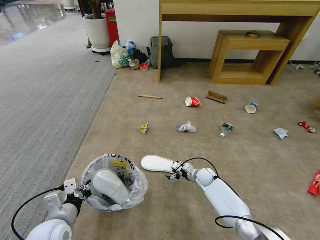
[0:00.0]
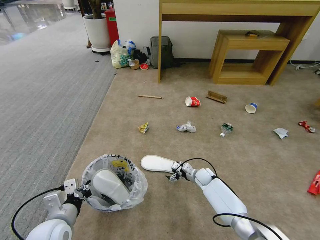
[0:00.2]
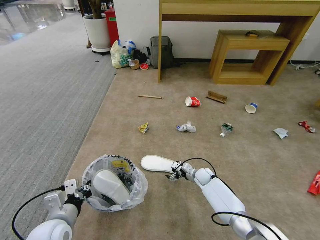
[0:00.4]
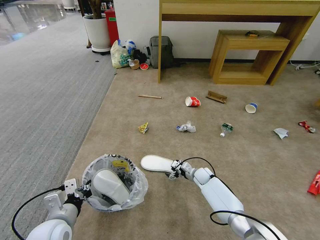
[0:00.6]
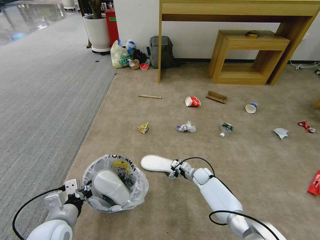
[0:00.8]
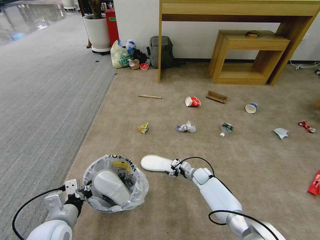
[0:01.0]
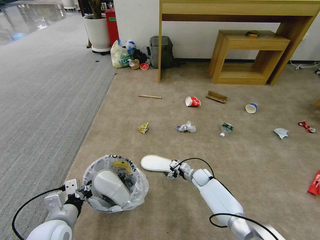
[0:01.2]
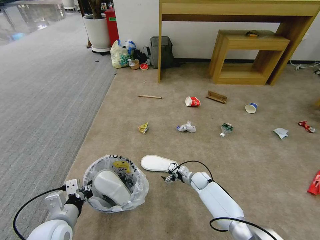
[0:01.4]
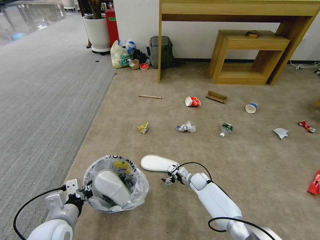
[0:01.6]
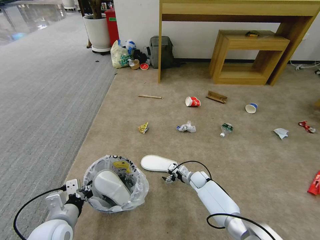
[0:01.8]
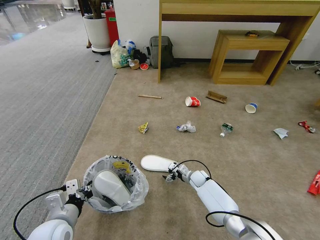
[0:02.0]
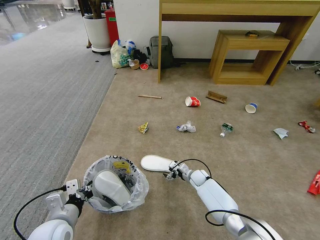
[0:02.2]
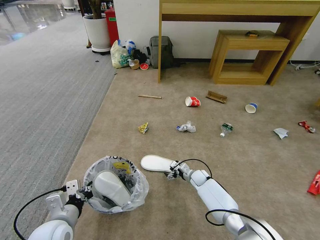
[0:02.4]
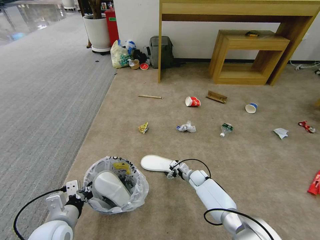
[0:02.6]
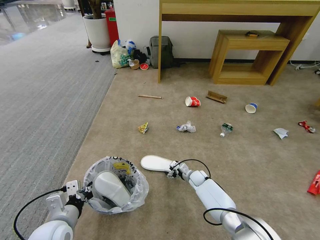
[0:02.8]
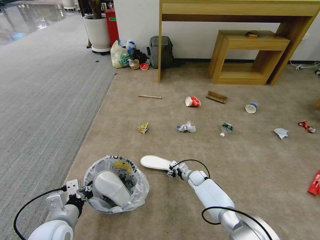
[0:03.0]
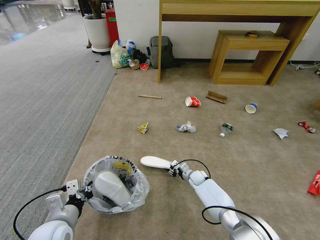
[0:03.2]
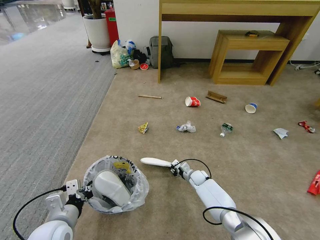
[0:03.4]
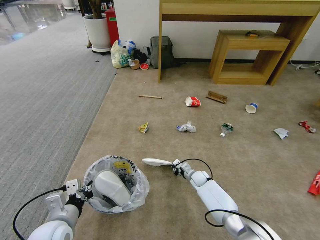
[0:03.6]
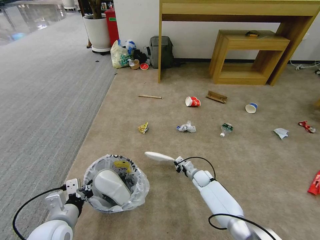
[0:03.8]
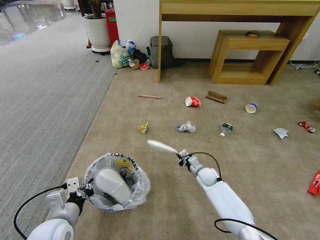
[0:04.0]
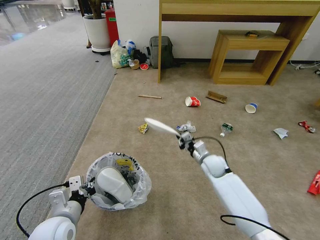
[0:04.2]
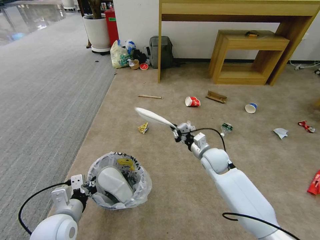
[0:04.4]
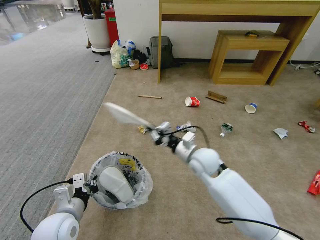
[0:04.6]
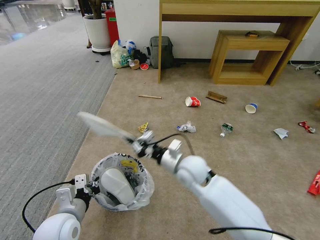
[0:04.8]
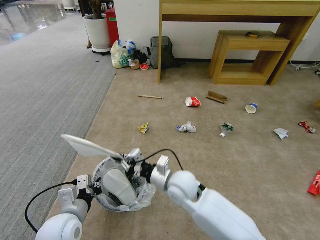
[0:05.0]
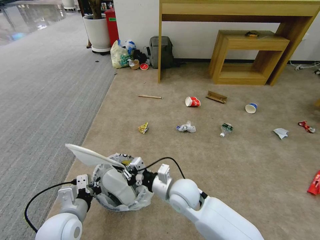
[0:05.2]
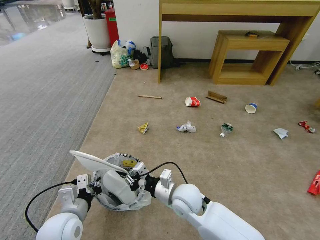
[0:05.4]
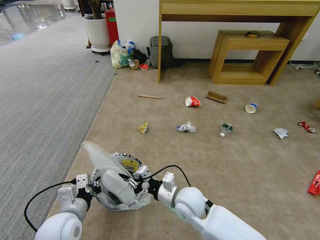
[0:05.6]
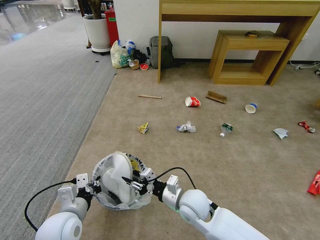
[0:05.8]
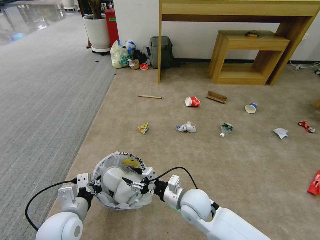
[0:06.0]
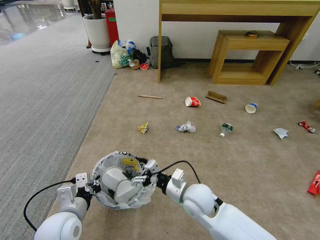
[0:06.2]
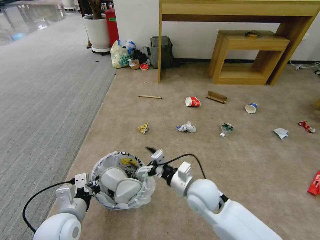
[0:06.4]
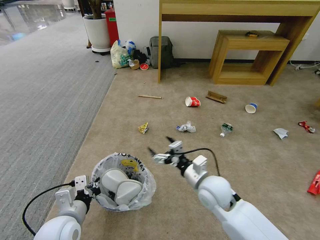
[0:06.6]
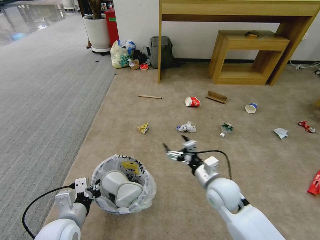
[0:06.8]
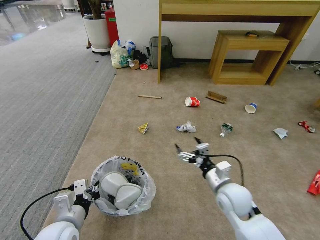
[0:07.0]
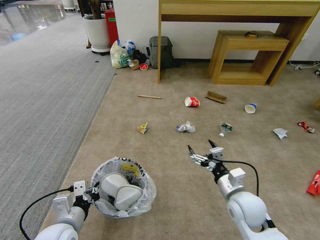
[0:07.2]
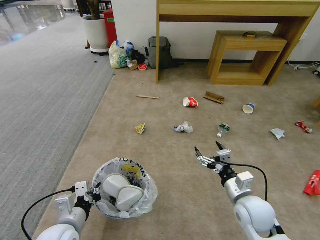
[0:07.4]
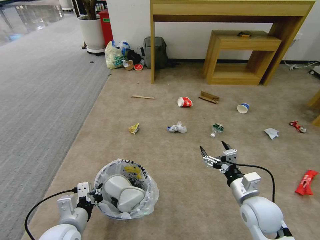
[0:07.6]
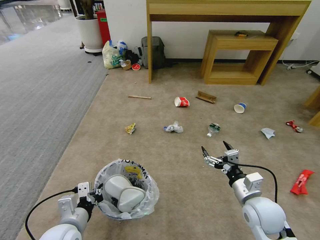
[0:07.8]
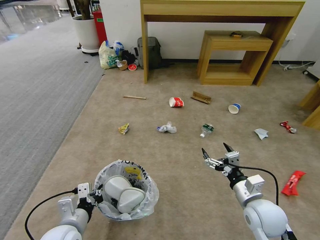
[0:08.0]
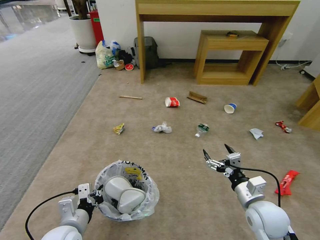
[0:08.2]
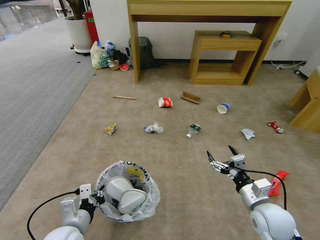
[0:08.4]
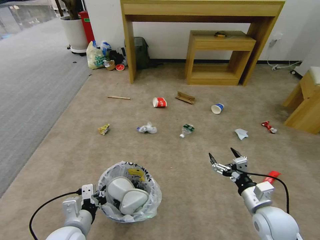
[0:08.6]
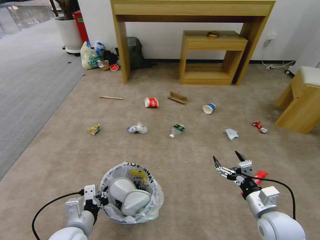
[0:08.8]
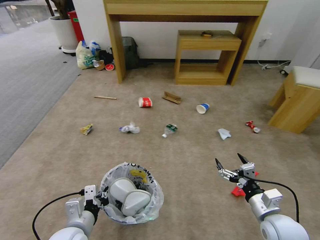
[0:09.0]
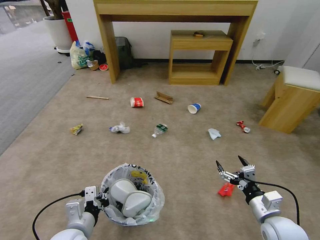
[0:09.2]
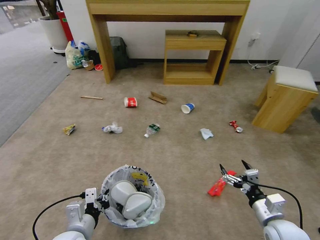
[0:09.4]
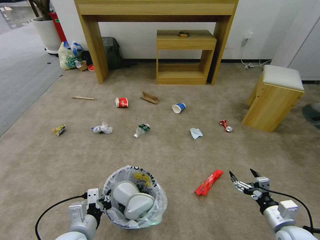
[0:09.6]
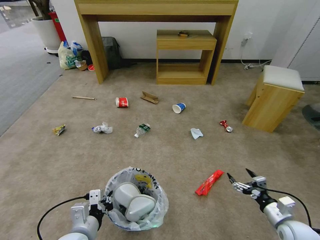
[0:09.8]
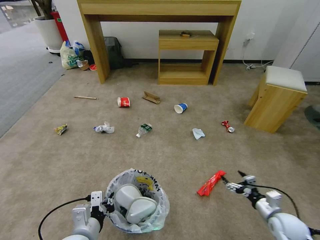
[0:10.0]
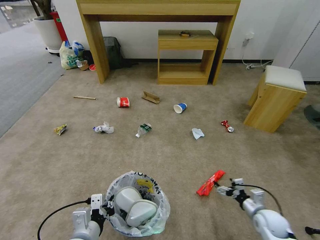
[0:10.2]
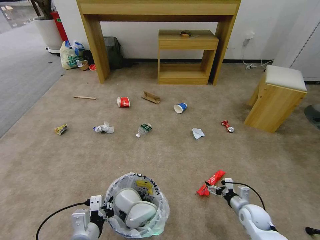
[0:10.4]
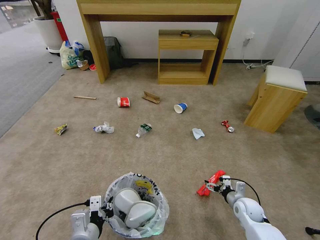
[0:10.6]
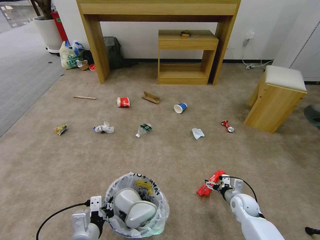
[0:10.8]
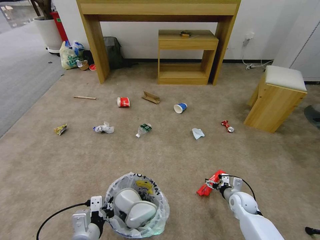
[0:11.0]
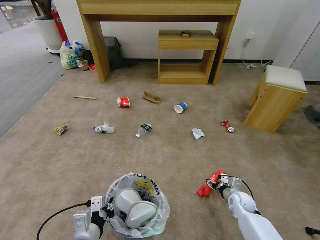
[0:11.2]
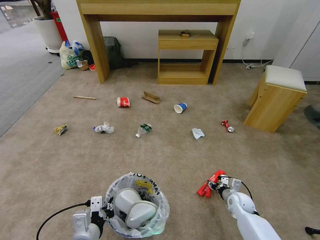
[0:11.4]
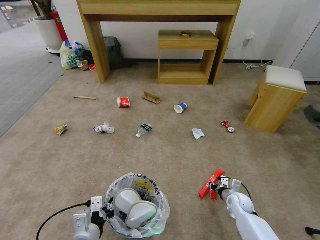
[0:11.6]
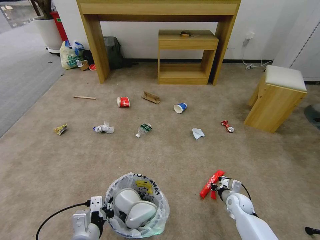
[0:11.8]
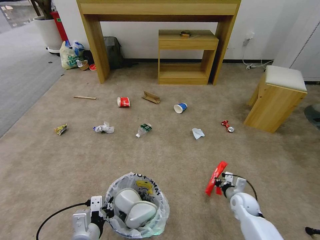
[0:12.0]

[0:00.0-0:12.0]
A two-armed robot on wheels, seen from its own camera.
Task of the whole recording: Pick up the trash bin and place the garbage on the floor into it.
0:00.0 to 0:01.6: The grippers stay close to where they were, moving slightly.
0:01.6 to 0:03.0: The right gripper closes.
0:03.0 to 0:04.4: The right gripper travels upward by about 25 cm, and closes.
0:04.4 to 0:06.0: The right gripper travels backward and to the left by approximately 20 cm, and opens.
0:06.0 to 0:07.6: The right gripper travels to the right by roughly 15 cm, and opens up.
0:07.6 to 0:09.0: The right gripper heads to the right, covering some 5 cm.
0:09.0 to 0:10.4: The right gripper heads downward and forward, covering about 15 cm.
0:10.4 to 0:12.0: The right gripper closes its fingers.

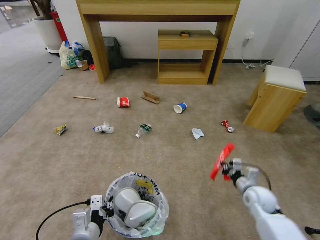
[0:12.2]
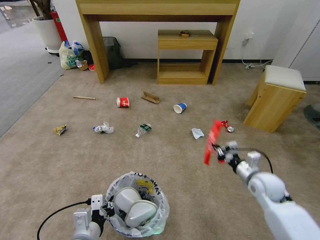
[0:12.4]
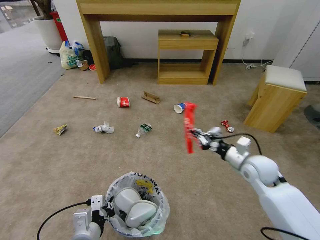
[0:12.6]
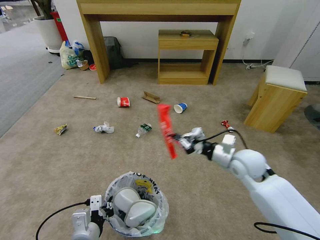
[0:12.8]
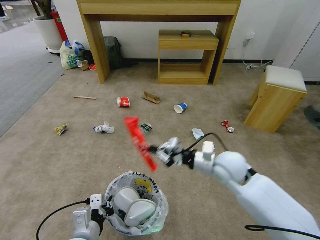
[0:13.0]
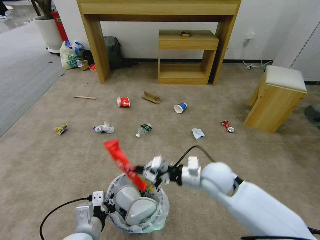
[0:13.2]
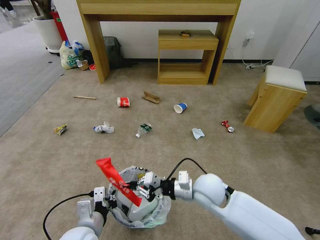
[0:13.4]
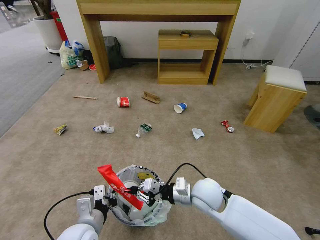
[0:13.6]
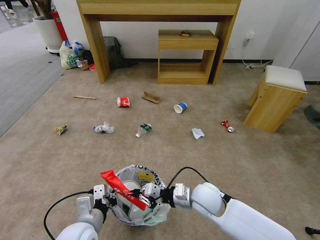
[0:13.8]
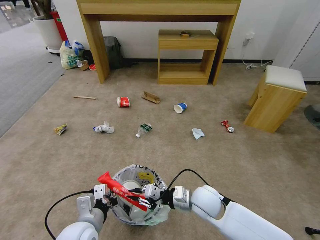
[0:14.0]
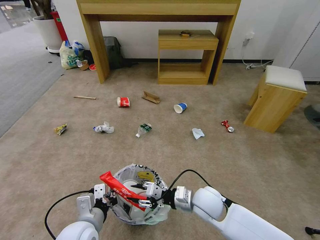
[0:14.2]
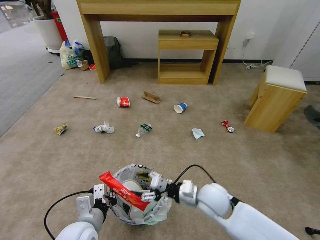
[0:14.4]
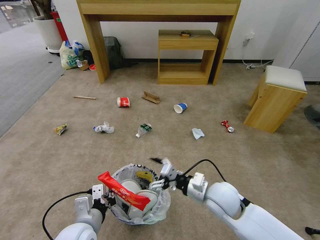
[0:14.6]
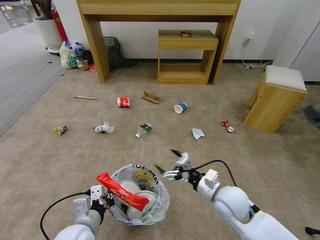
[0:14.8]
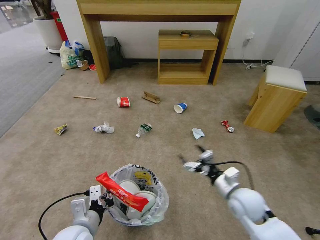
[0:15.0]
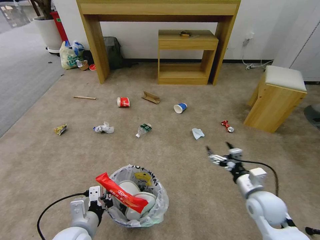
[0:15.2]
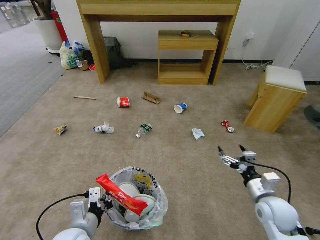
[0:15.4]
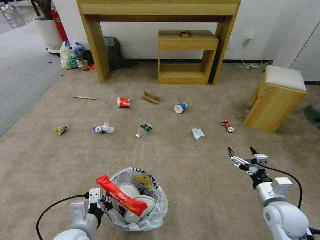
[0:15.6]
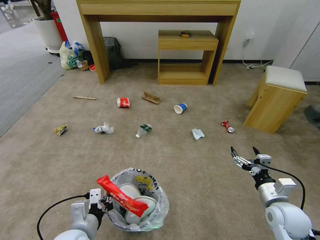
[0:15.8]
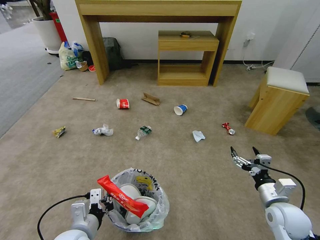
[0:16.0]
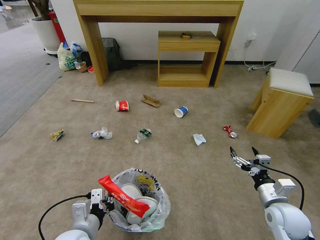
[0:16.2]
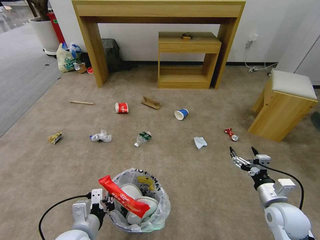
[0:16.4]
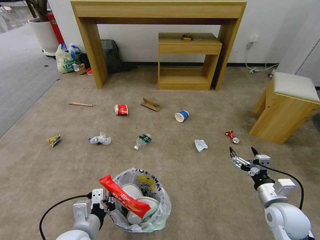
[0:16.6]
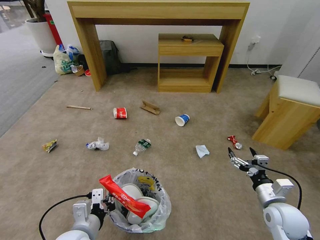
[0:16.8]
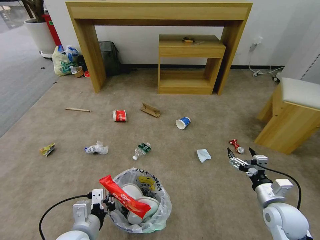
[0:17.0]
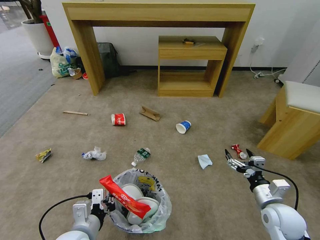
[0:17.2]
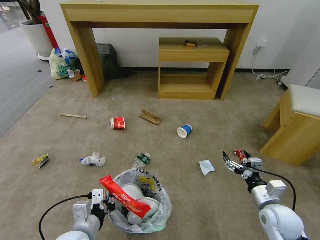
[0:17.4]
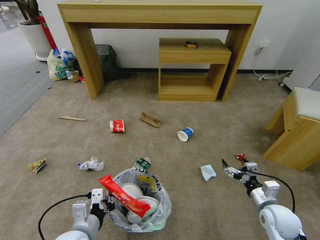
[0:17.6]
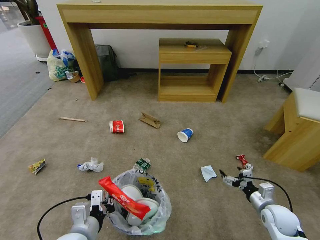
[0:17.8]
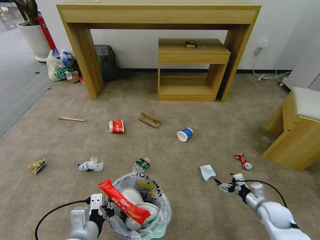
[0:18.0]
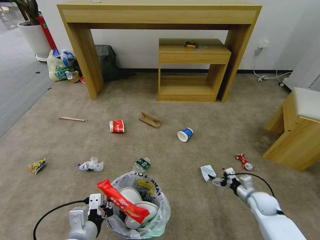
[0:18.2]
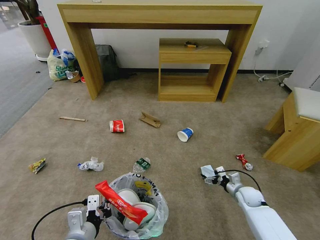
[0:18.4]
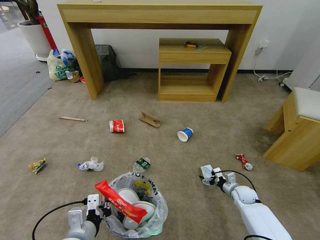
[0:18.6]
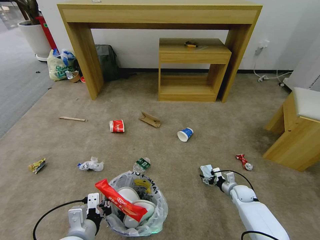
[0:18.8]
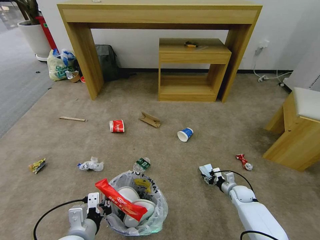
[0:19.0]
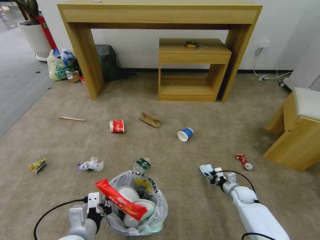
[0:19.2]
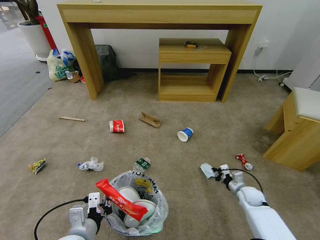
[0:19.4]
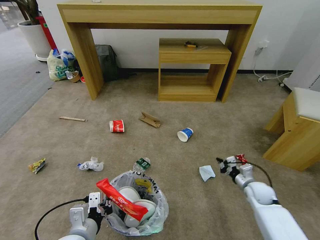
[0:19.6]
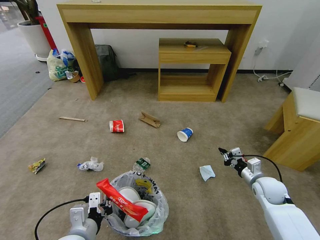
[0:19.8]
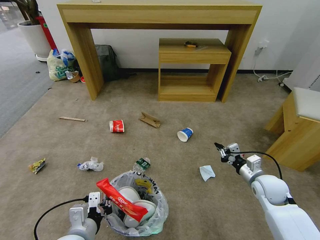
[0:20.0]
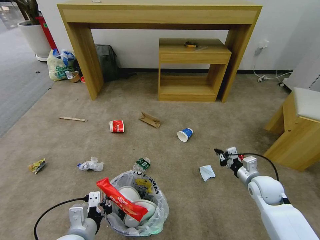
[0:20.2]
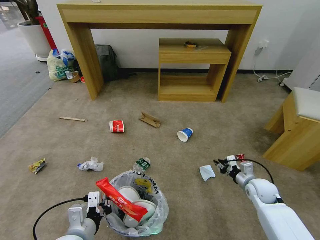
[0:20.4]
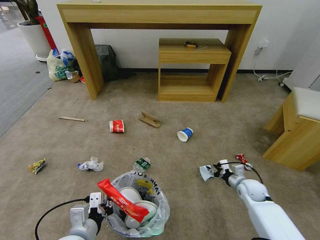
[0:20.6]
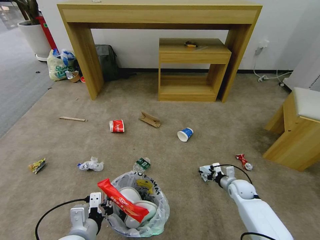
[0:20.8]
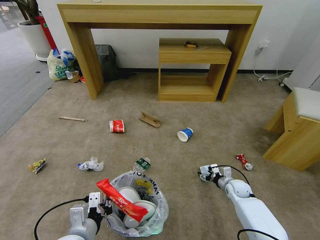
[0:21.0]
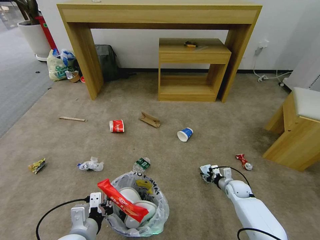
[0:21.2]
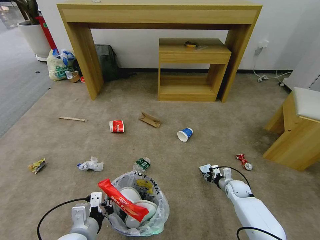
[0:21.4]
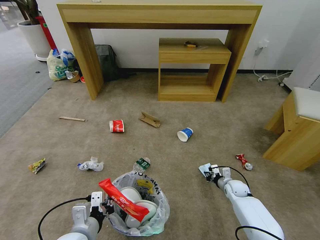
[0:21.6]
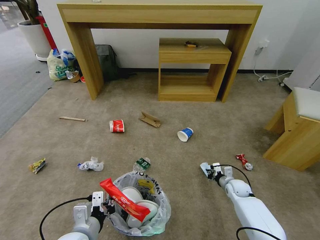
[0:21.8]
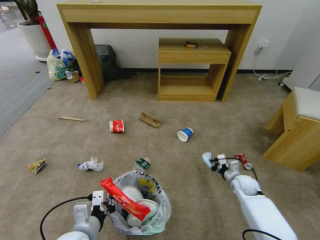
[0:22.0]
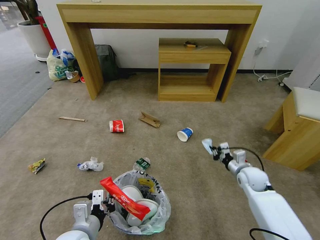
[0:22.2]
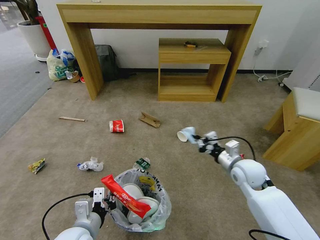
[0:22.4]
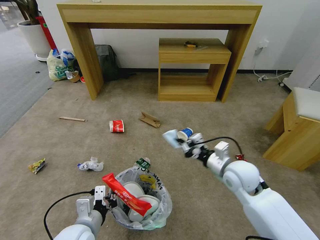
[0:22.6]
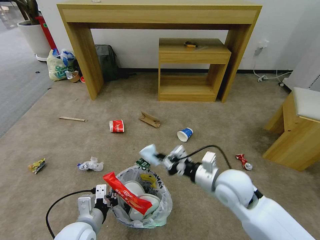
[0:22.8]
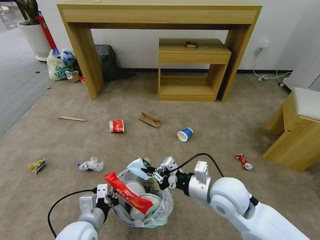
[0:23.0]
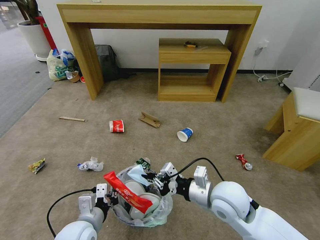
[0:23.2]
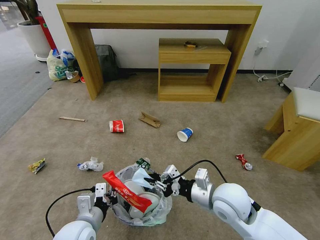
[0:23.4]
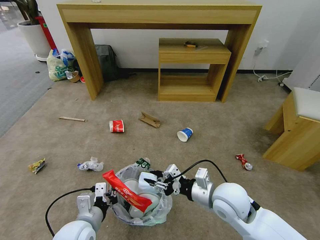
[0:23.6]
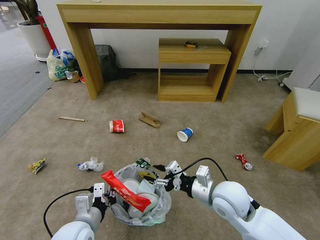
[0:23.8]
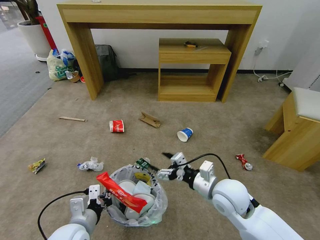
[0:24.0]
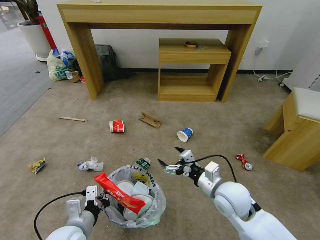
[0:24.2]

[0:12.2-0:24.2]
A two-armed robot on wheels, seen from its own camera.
Task of the whole recording: Pick up the trash bin and place the garbage on the floor into it.
0:12.2 to 0:13.8: The right gripper heads to the left and upward, covering roughly 25 cm.
0:13.8 to 0:15.2: The right gripper goes about 15 cm to the right, and opens its fingers.
0:15.2 to 0:16.6: The right gripper heads to the right, covering approximately 5 cm.
0:16.6 to 0:18.2: The right gripper heads downward and forward, covering about 15 cm.
0:18.2 to 0:19.8: The right gripper is displaced upward by some 10 cm, and closes its fingers.
0:19.8 to 0:21.2: The right gripper moves downward, roughly 15 cm, and opens.
0:21.2 to 0:22.6: The right gripper heads upward and to the left, covering about 25 cm, and closes up.
0:22.6 to 0:24.2: The right gripper is displaced backward by approximately 5 cm, and opens.
